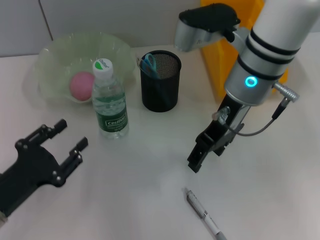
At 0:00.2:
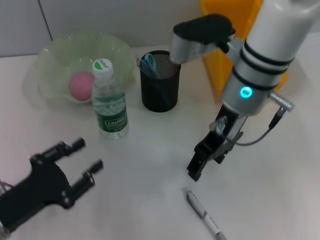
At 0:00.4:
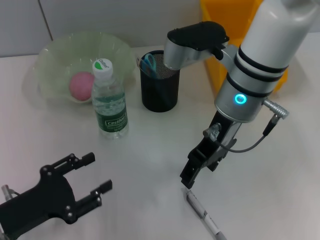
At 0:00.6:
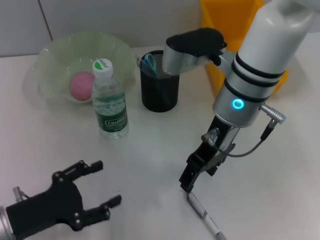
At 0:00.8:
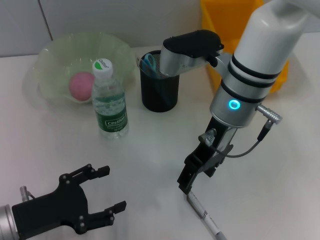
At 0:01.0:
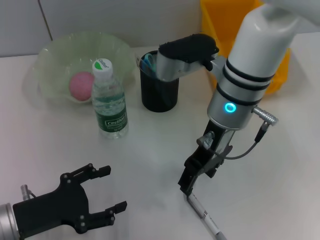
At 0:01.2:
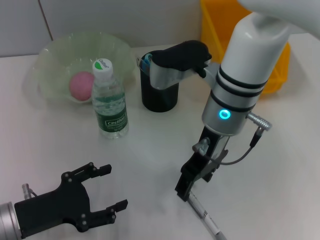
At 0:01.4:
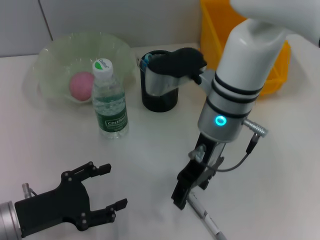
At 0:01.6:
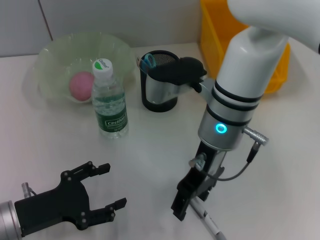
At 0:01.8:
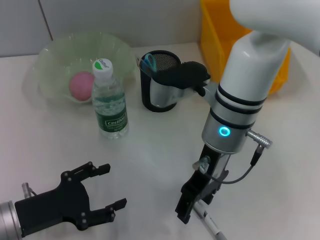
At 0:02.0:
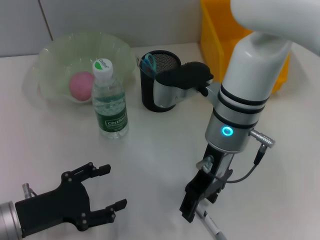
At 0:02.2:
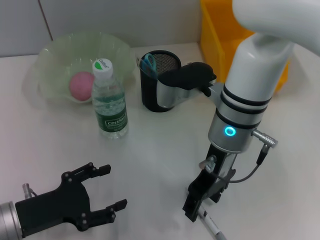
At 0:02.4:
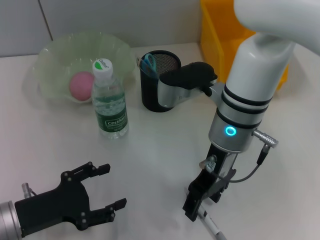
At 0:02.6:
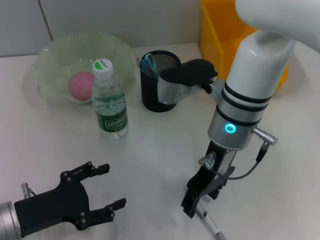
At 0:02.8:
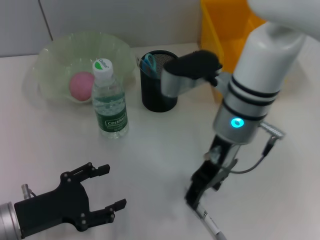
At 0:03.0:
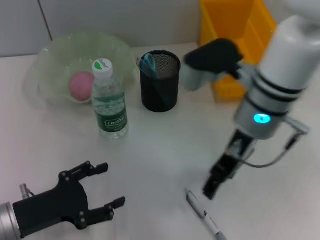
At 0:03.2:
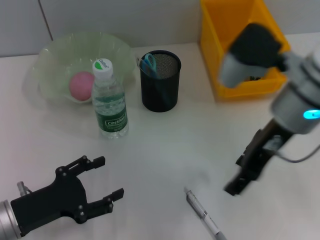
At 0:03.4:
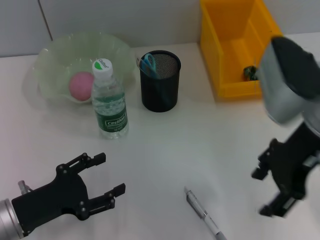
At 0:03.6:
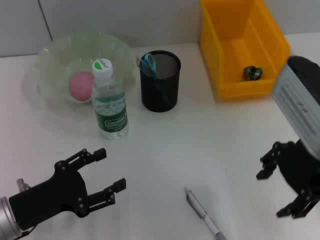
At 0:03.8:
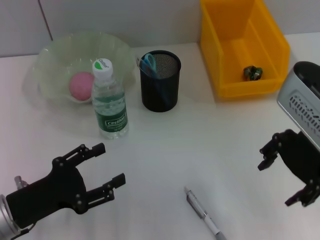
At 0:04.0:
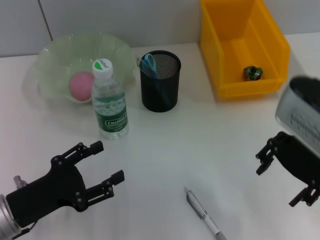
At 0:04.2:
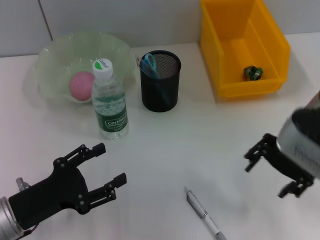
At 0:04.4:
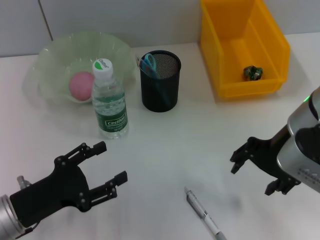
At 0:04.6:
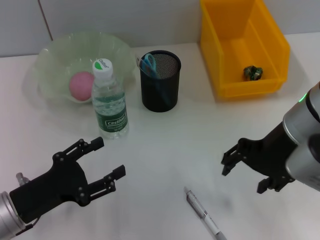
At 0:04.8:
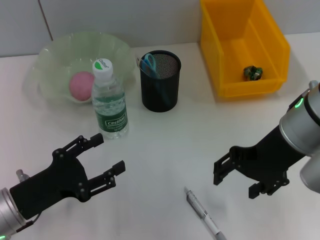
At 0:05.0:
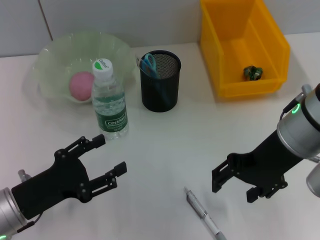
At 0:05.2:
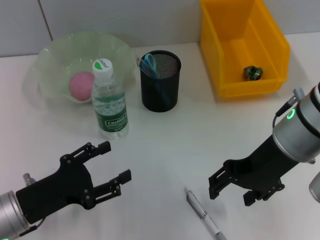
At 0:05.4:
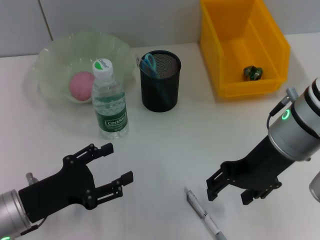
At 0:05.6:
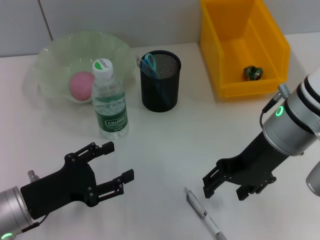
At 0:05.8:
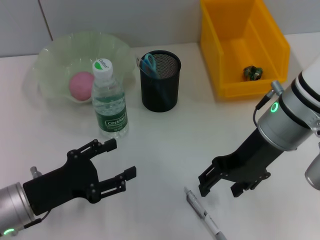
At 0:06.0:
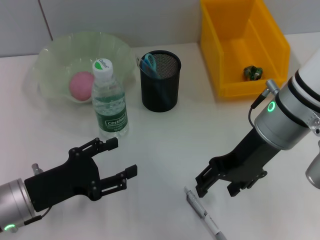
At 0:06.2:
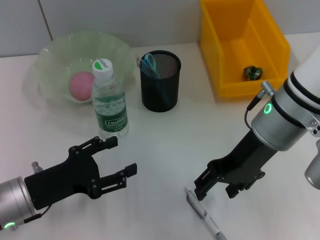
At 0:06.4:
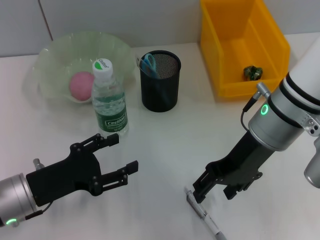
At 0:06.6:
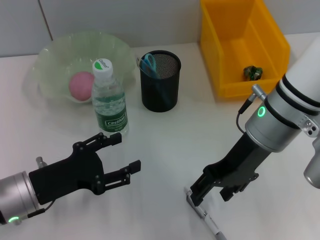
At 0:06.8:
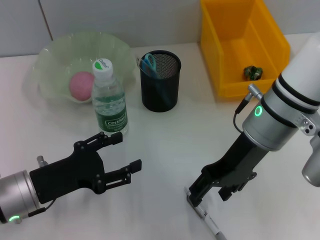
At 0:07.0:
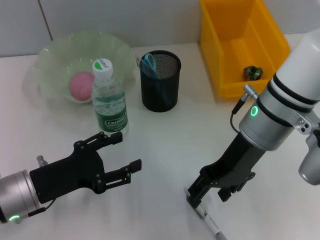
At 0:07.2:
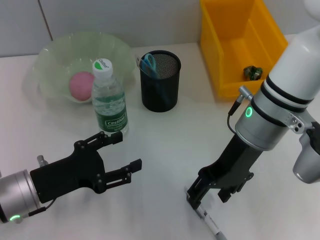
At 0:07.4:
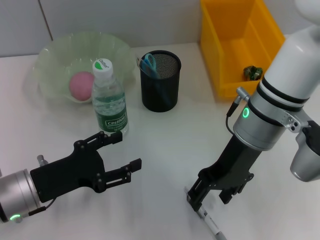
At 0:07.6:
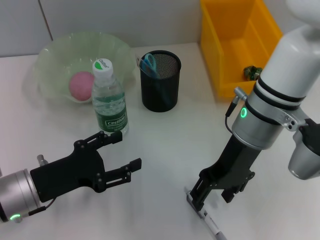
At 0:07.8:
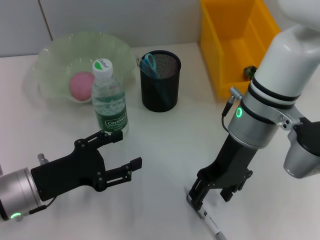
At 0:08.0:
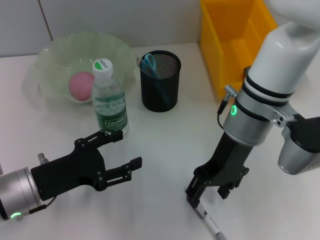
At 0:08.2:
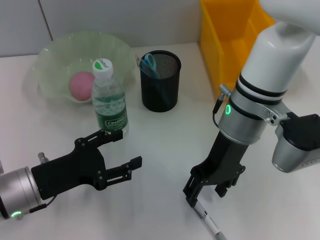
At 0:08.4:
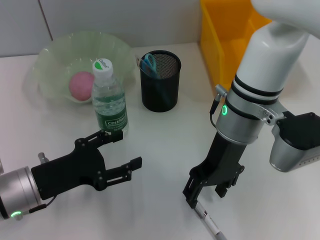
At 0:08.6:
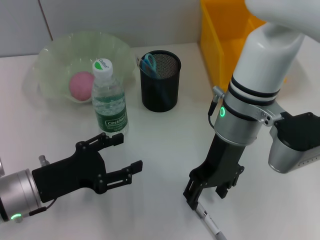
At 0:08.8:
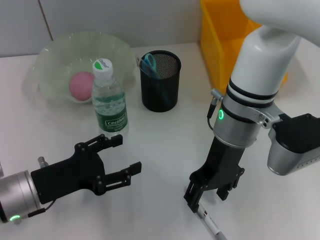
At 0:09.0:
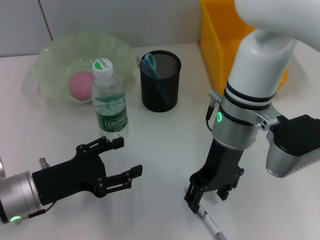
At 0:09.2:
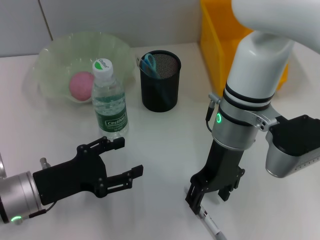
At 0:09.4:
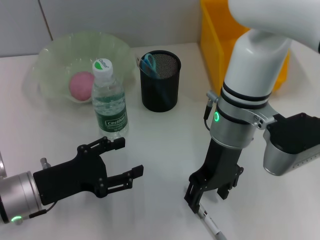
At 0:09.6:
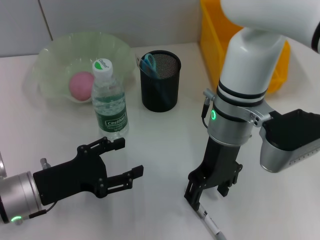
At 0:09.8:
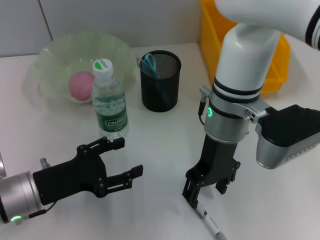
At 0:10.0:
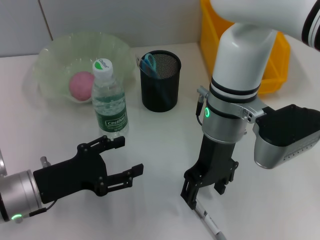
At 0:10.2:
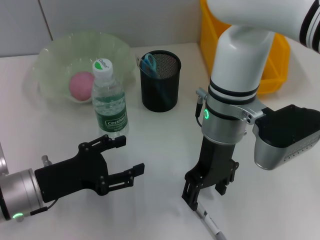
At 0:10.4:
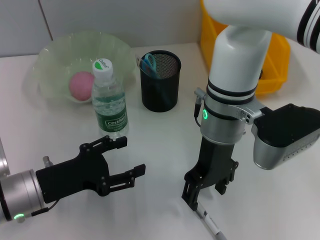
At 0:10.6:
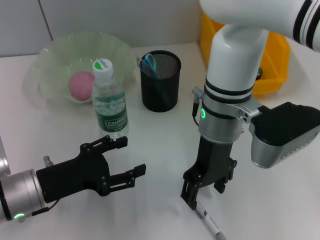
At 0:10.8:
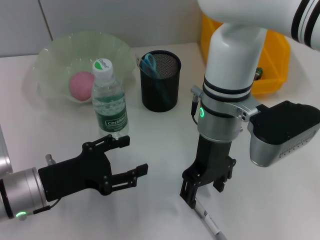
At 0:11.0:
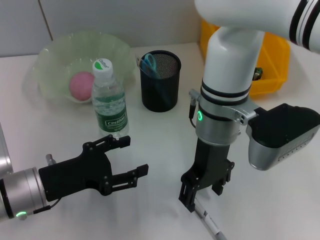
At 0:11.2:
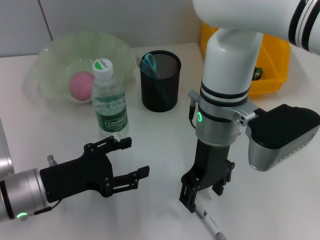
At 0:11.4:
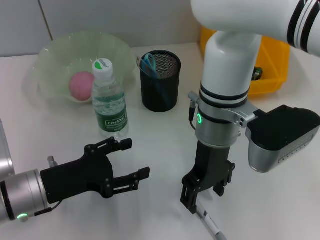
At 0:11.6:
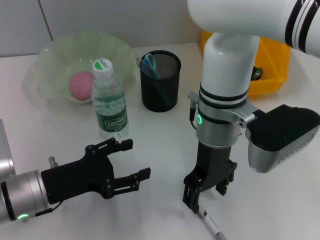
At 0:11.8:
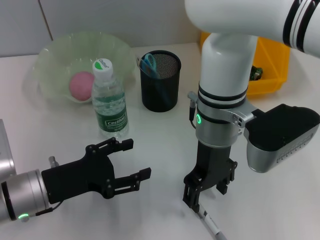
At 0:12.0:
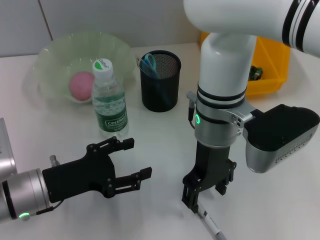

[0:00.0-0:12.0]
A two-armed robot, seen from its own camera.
0:00.0 to 0:01.6: The right gripper changes place by roughly 5 cm, while the left gripper opens its fingers.
0:01.6 to 0:03.0: The right gripper goes roughly 5 cm to the right.
0:03.0 to 0:04.4: The right gripper ends up roughly 5 cm from where it was.
0:06.0 to 0:07.6: There are only small adjustments of the grippers.
0:09.0 to 0:10.4: The grippers move only a little.
0:10.4 to 0:12.0: Neither gripper changes place.

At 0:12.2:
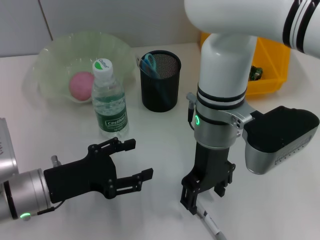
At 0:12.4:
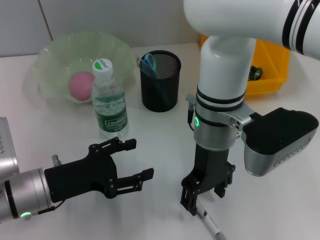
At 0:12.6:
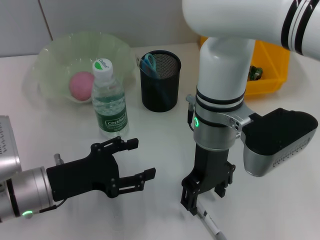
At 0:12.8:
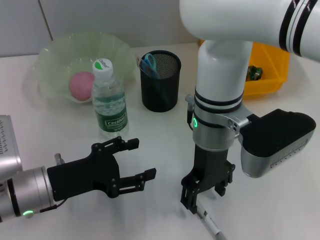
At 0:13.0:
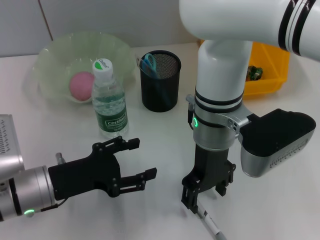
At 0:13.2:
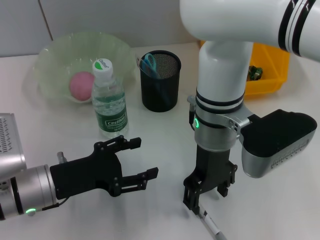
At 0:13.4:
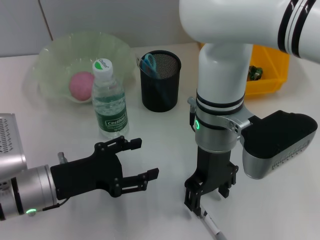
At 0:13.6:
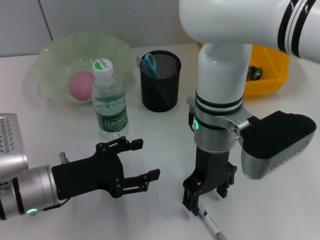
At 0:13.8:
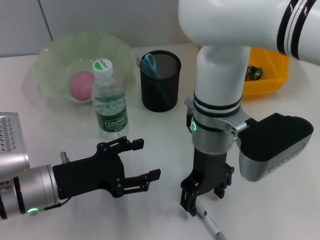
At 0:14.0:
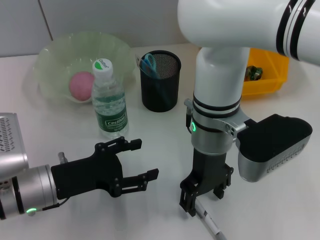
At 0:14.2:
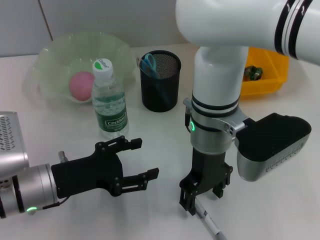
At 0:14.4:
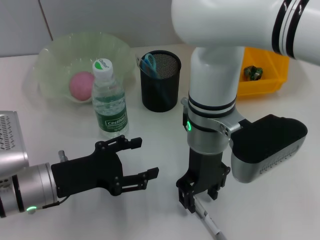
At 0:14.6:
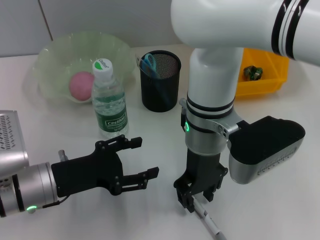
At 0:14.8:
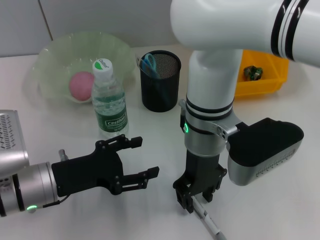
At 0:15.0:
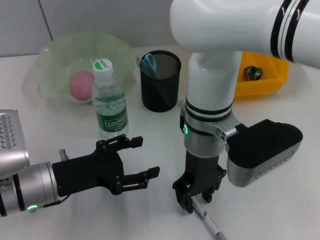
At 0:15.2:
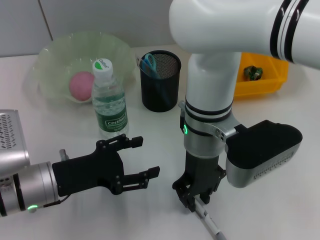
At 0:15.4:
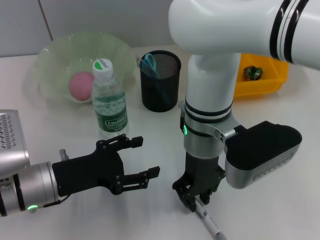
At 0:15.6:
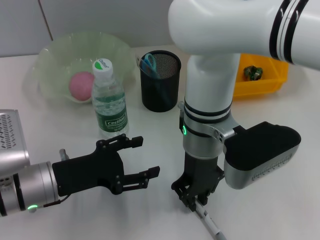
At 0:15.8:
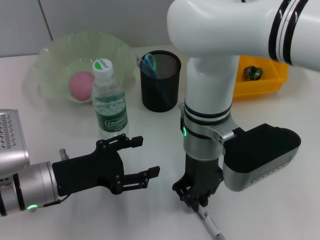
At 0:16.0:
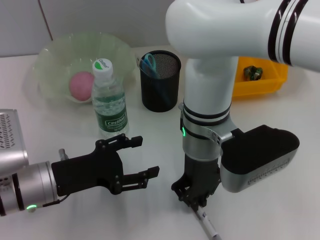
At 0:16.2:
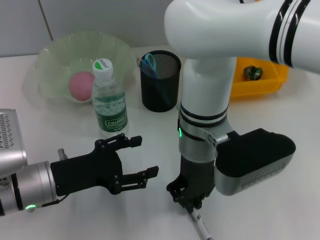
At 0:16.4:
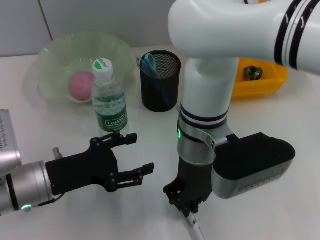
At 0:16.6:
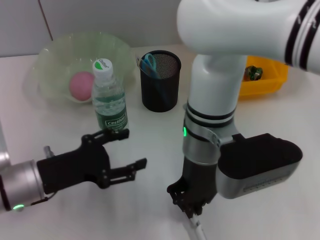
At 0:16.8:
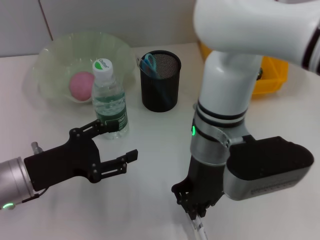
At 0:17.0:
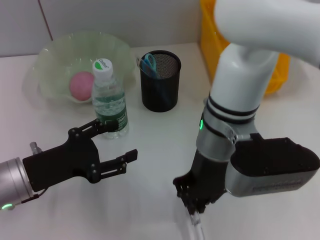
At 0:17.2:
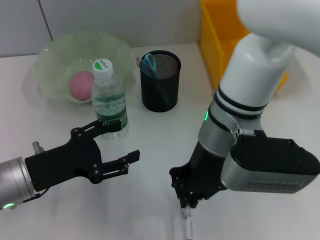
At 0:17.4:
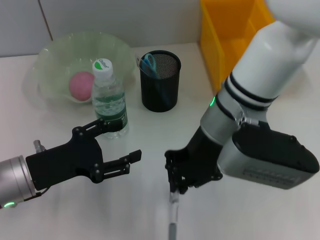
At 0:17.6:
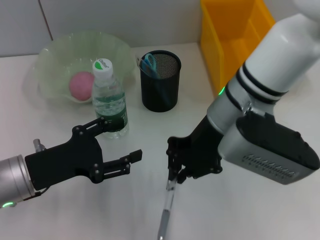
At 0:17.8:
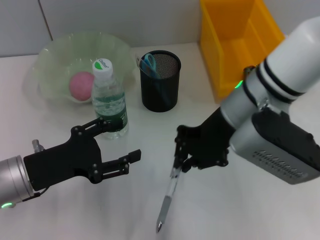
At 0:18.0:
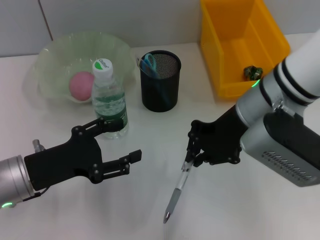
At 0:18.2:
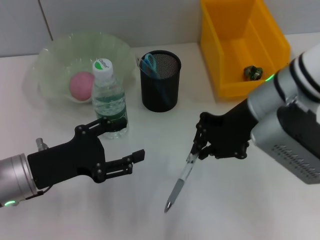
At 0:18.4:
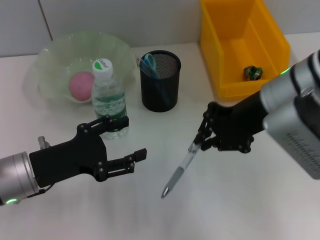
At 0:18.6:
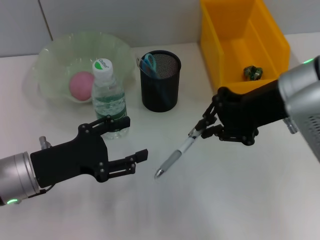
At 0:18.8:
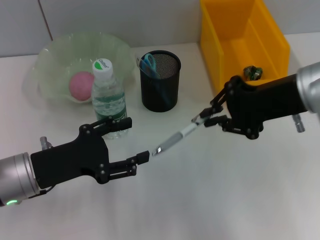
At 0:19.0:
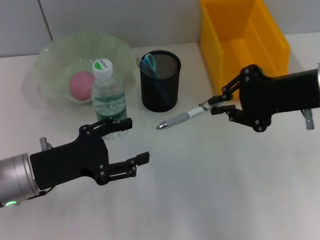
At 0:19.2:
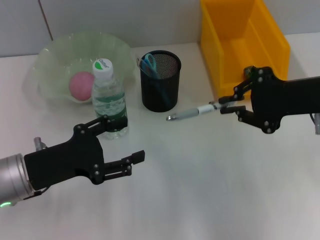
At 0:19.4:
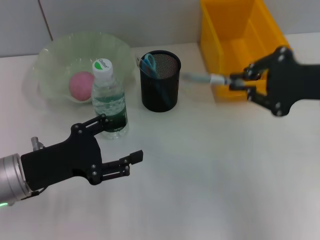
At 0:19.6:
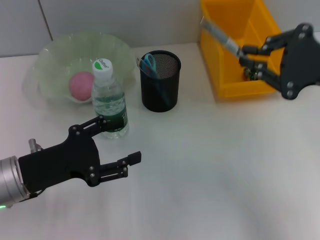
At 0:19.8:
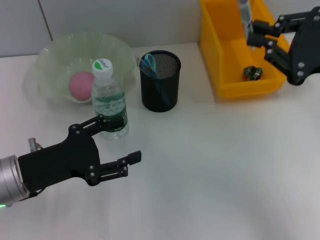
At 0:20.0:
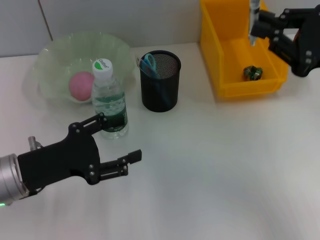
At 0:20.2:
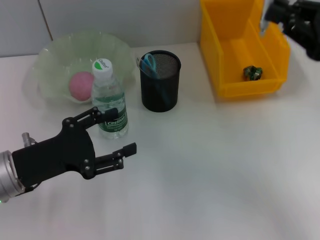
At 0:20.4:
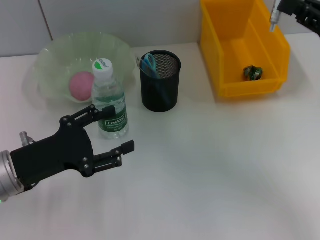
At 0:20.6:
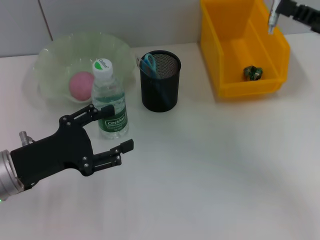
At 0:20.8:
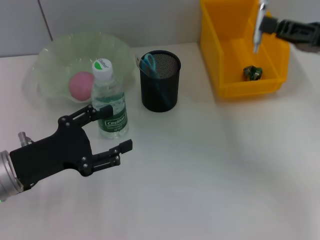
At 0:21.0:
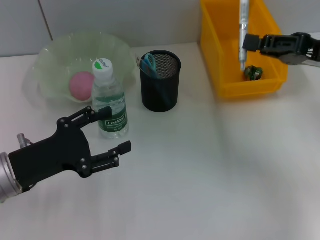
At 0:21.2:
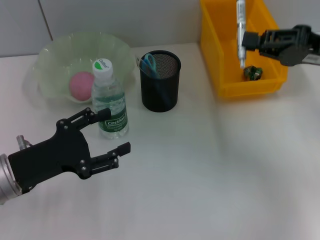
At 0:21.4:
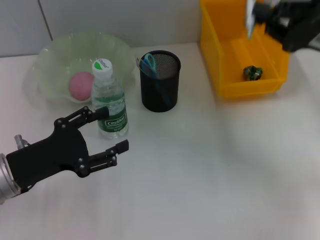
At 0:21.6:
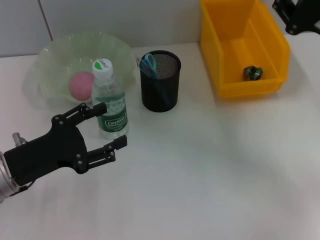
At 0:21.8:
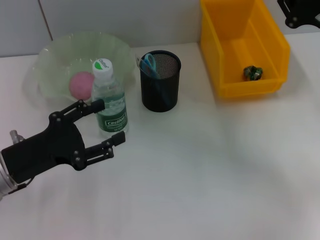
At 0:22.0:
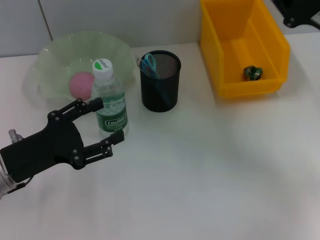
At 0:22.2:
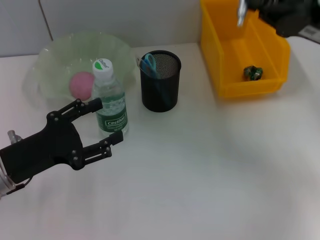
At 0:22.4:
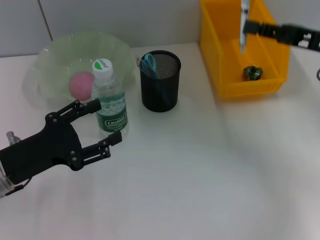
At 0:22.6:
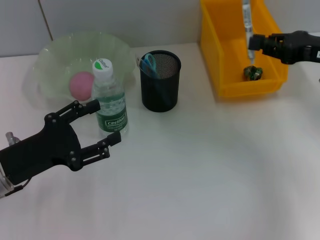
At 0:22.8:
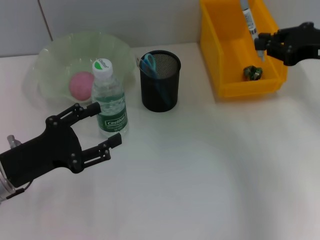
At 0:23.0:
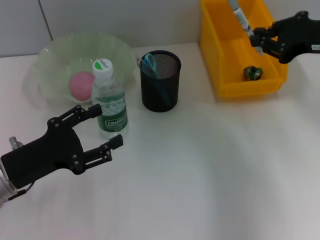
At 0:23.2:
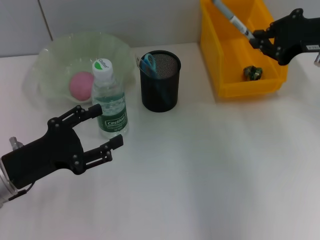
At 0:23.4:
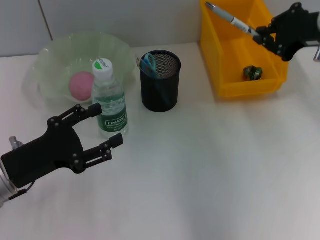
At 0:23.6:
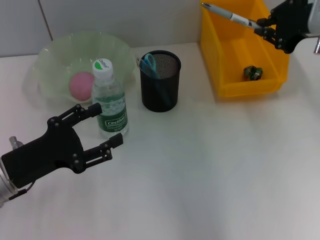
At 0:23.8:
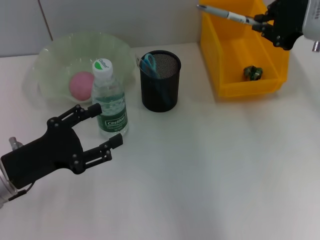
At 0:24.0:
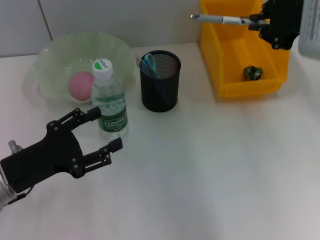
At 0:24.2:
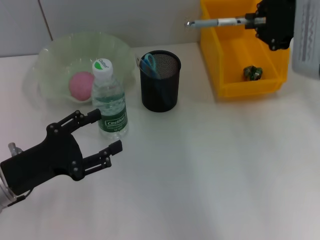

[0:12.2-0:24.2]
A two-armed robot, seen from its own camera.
Step, 0:12.2 to 0:15.8: Grab the gray spring-action pen with the right hand.
0:12.2 to 0:13.8: Both grippers stay about where they are.
0:13.8 to 0:15.2: The right gripper closes its fingers.
0:16.6 to 0:18.2: The right gripper travels to the right by some 10 cm.
0:18.2 to 0:19.8: The right gripper travels to the right by roughly 15 cm.
0:19.8 to 0:21.2: The right gripper moves forward, about 5 cm.
0:22.6 to 0:24.2: The right gripper shifts approximately 10 cm to the left and upward.
